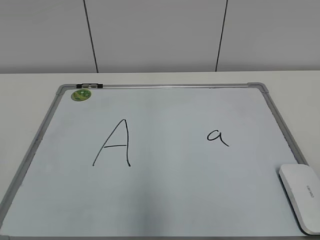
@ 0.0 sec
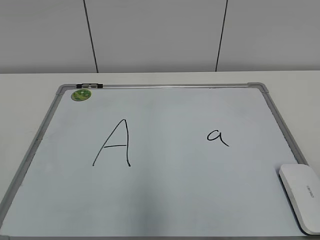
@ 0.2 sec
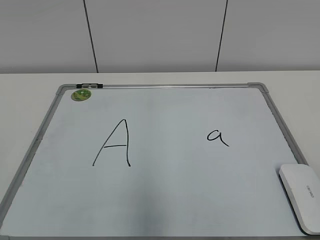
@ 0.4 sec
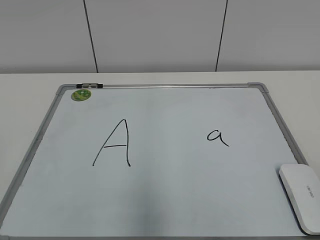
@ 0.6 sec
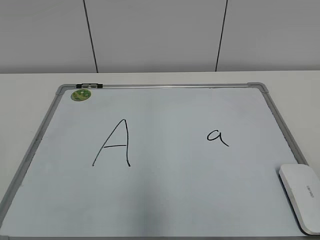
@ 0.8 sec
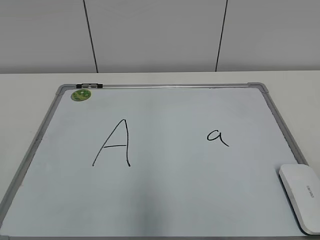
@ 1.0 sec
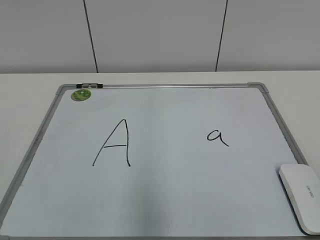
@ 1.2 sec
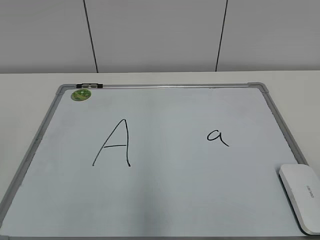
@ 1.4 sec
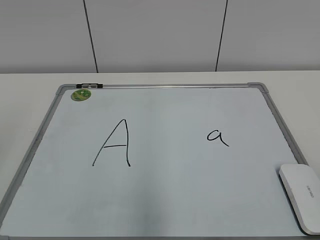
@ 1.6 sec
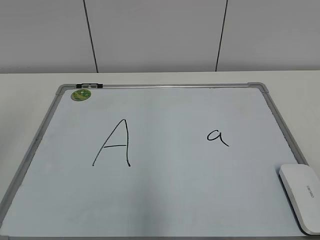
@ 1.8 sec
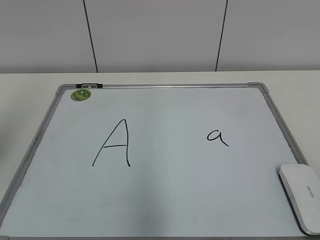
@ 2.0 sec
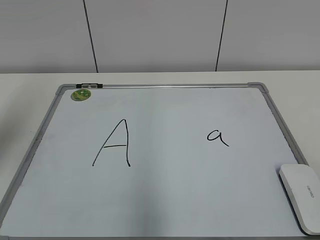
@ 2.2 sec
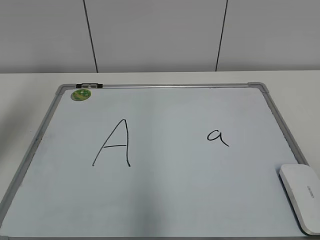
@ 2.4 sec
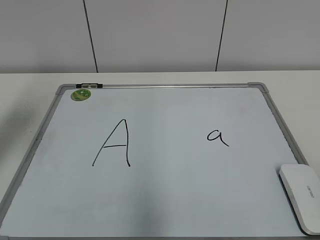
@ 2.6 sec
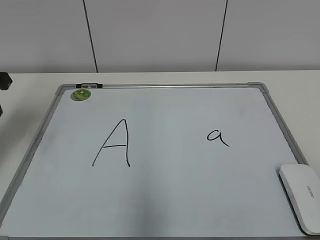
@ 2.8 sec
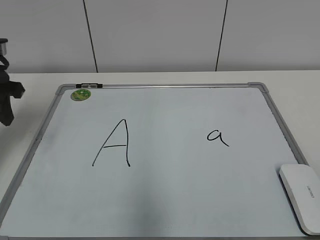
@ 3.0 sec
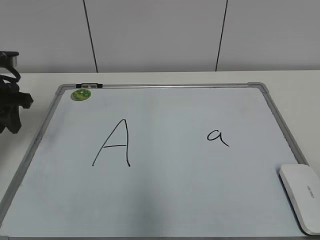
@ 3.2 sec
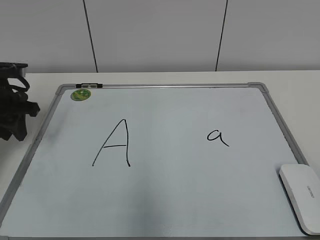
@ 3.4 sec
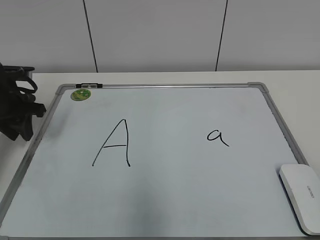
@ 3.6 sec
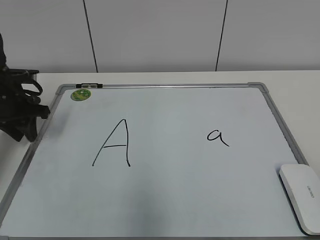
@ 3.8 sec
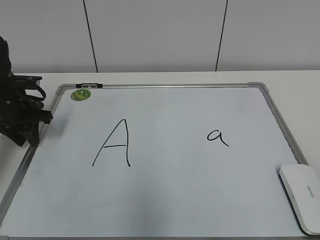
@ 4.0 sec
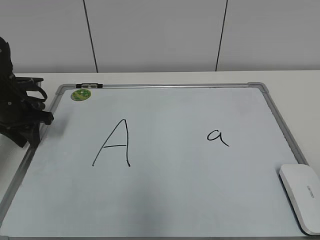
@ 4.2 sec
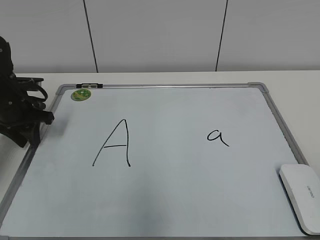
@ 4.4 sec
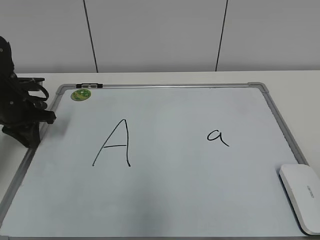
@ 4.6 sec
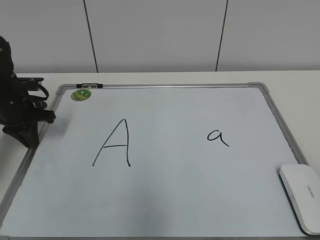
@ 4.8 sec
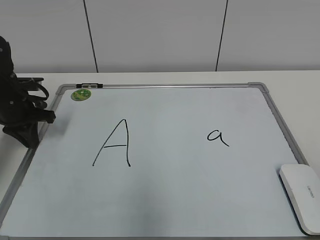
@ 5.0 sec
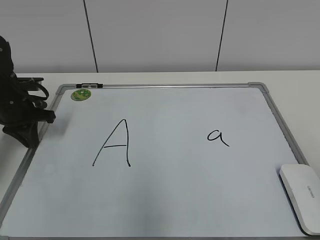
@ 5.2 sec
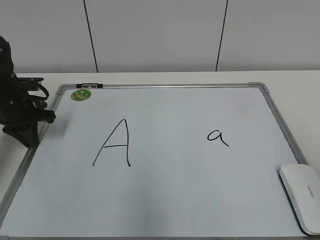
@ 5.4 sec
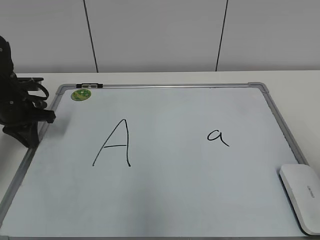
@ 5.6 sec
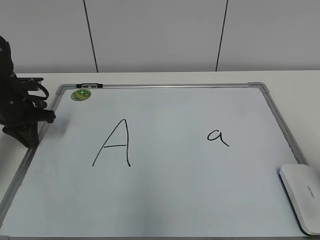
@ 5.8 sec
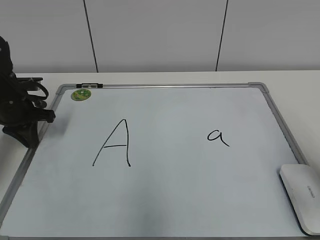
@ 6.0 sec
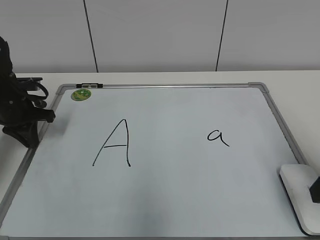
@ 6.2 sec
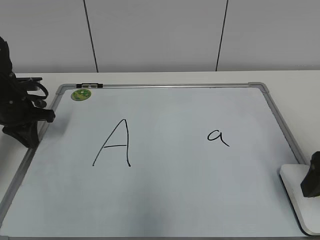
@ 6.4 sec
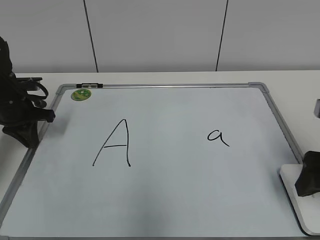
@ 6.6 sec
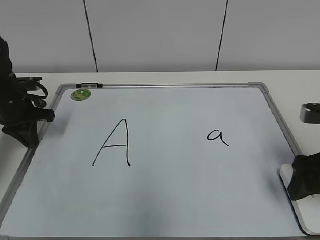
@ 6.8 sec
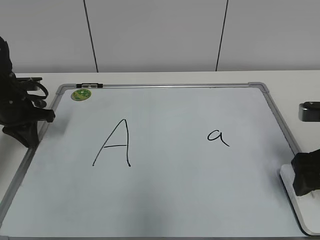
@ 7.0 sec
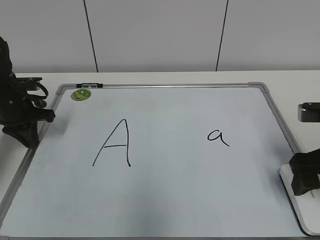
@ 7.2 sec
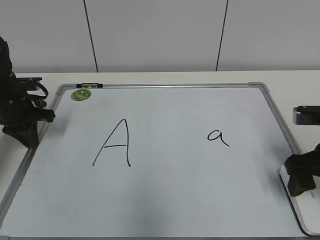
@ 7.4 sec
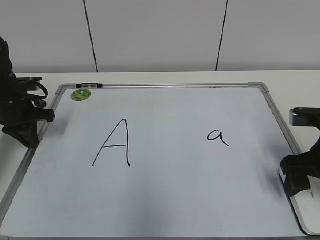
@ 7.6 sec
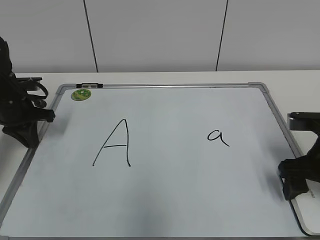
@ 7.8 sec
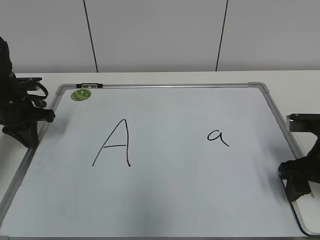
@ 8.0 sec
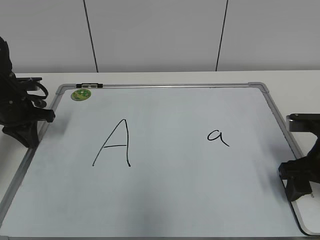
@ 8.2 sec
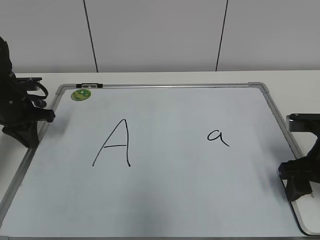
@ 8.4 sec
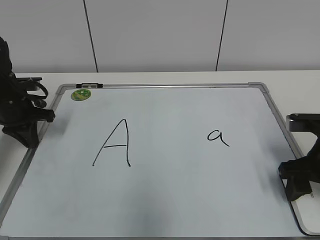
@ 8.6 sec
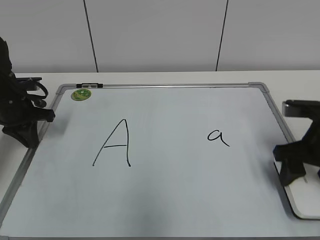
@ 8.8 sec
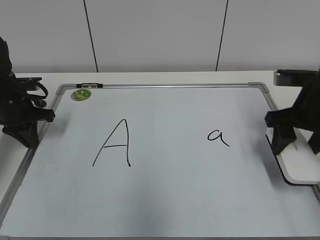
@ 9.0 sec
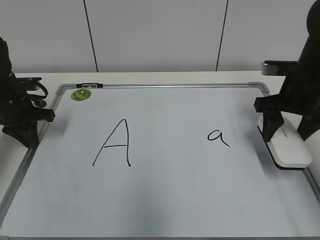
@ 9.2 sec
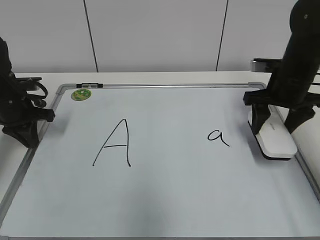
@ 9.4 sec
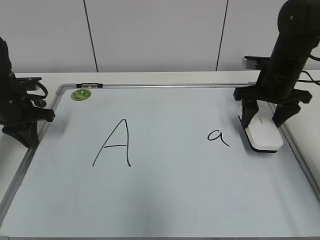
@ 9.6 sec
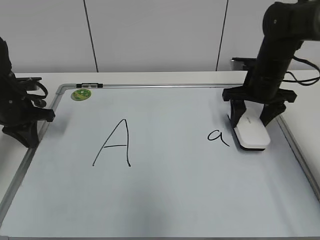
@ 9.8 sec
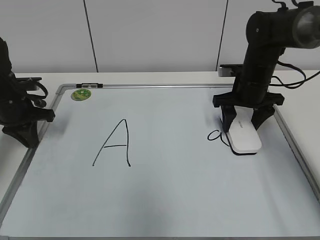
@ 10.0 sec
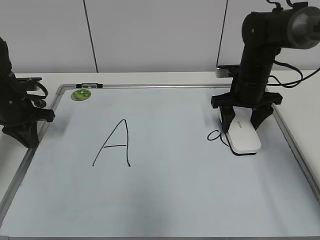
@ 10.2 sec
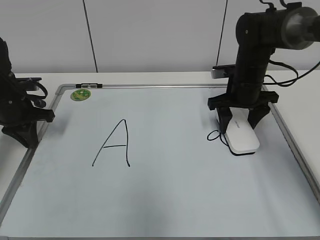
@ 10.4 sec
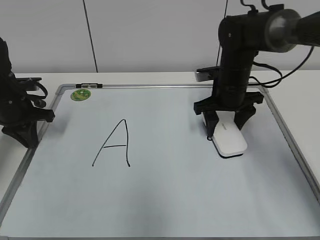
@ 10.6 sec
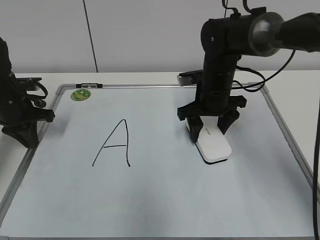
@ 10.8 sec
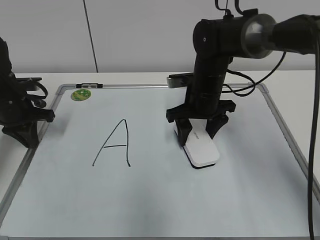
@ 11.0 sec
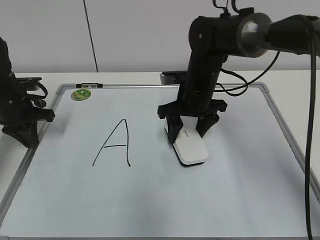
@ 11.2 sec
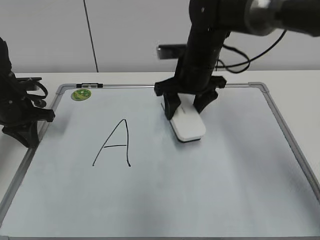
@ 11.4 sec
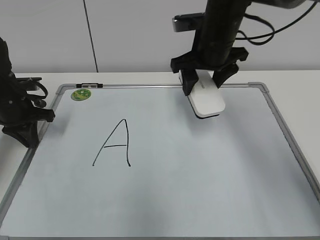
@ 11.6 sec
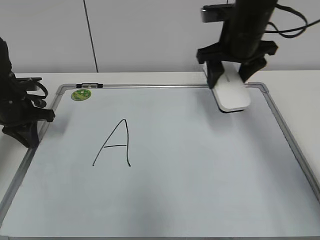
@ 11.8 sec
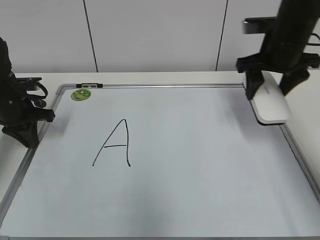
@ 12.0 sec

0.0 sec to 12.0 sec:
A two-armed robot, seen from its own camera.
Task of the whole recording: pick up the eraser on the blackboard and erase the letter "a".
Step, 0.0 sec to 5.4 sec: Hold the drawing board steady with your left hand.
Step, 5.6 sec to 8.2 sec: Grab the eraser with your right hand.
Step, 8.6 sec to 11.0 sec: Erase the letter a with your right hand.
1.6 sec to 3.0 sec: The left gripper travels forward and downward by about 30 cm.
3.0 sec to 4.4 sec: The left gripper heads downward and forward, covering roughly 10 cm.
4.4 sec to 6.0 sec: The left gripper closes up. The right gripper moves forward, about 20 cm, and opens.
6.0 sec to 7.6 sec: The right gripper heads forward and downward, covering about 10 cm.
7.6 sec to 9.0 sec: The right gripper is displaced forward by roughly 5 cm, and closes up.
9.0 sec to 10.4 sec: The right gripper moves forward, to the left and downward, about 15 cm.
10.4 sec to 12.0 sec: The right gripper shifts approximately 10 cm upward, and travels to the left and back again, approximately 10 cm each way.

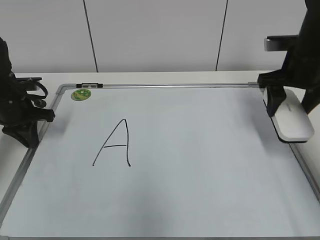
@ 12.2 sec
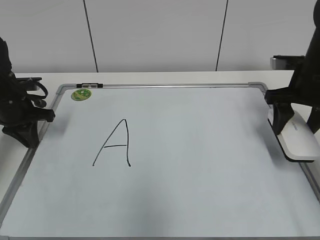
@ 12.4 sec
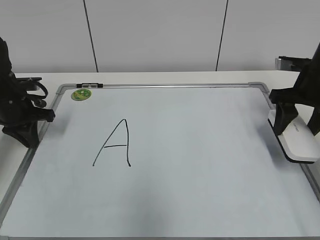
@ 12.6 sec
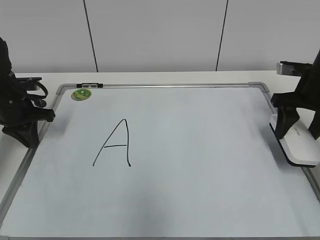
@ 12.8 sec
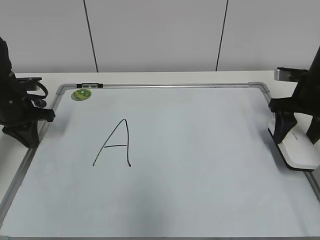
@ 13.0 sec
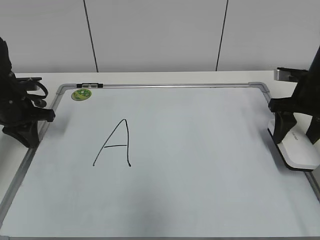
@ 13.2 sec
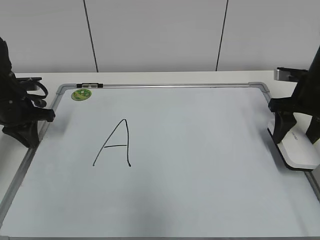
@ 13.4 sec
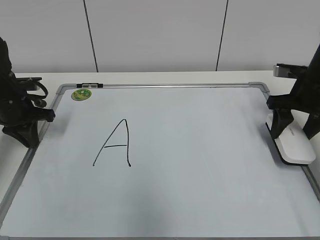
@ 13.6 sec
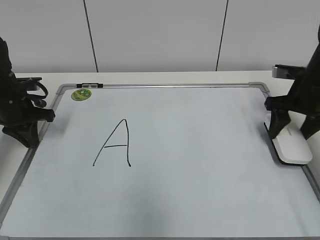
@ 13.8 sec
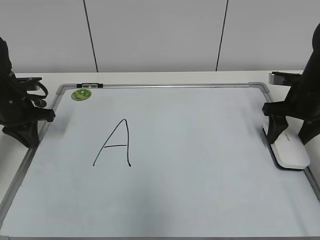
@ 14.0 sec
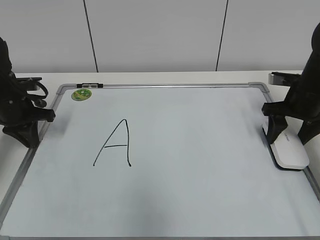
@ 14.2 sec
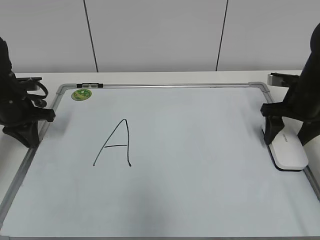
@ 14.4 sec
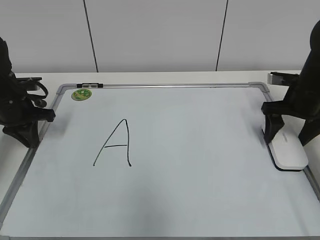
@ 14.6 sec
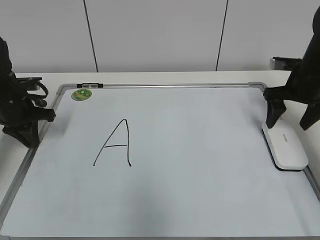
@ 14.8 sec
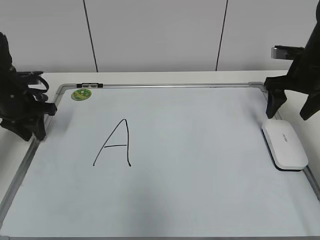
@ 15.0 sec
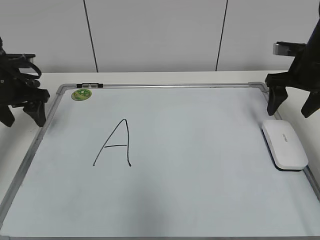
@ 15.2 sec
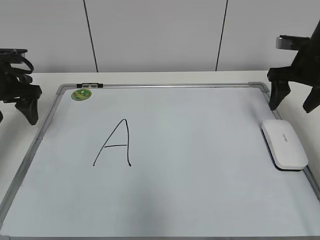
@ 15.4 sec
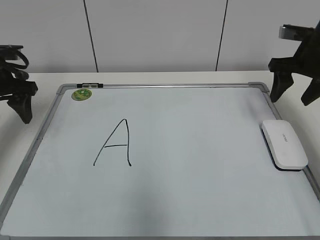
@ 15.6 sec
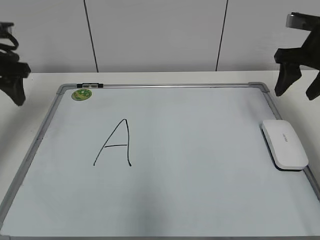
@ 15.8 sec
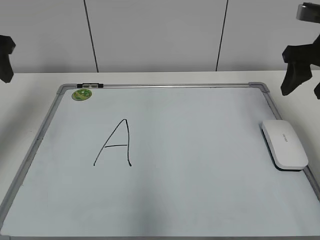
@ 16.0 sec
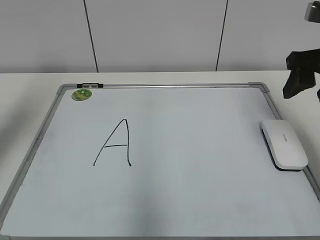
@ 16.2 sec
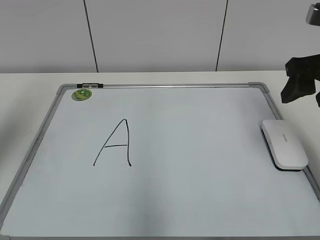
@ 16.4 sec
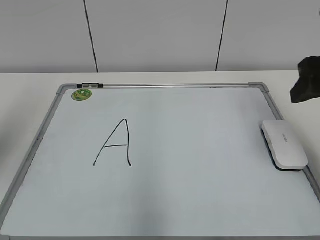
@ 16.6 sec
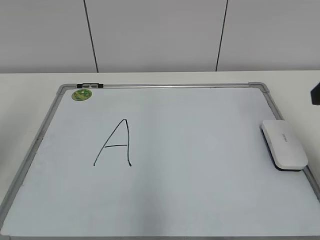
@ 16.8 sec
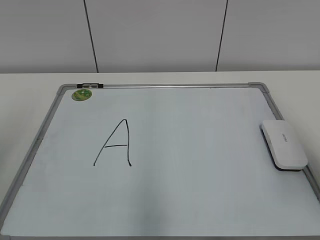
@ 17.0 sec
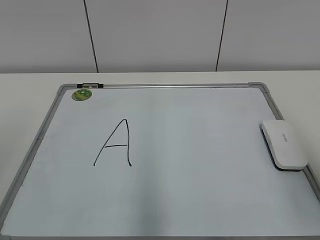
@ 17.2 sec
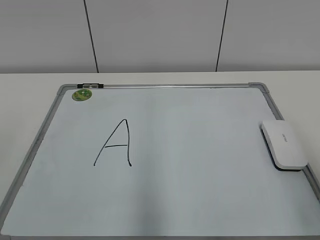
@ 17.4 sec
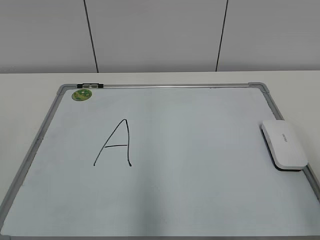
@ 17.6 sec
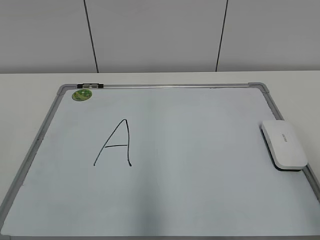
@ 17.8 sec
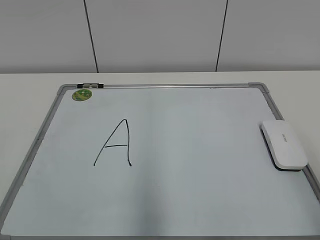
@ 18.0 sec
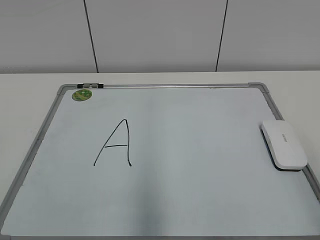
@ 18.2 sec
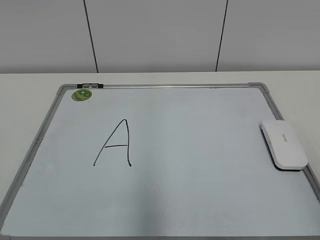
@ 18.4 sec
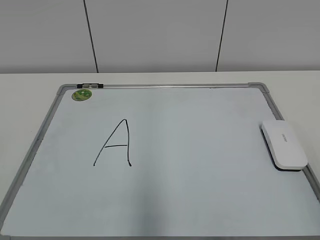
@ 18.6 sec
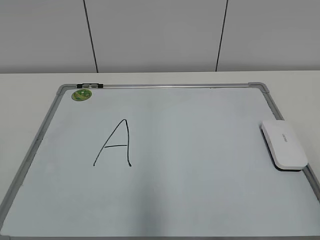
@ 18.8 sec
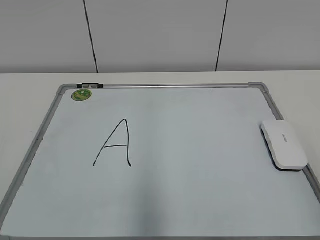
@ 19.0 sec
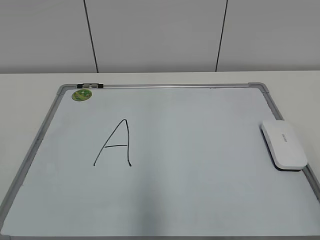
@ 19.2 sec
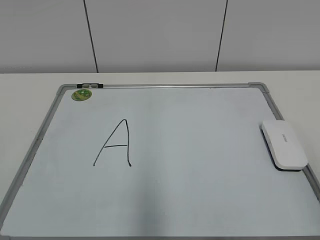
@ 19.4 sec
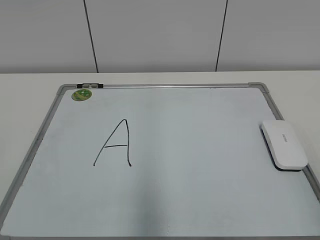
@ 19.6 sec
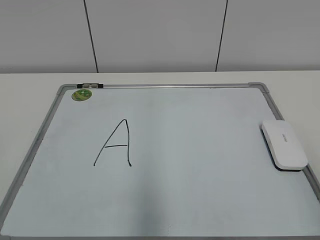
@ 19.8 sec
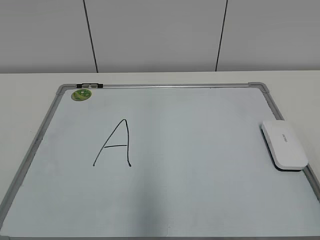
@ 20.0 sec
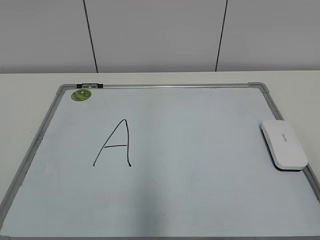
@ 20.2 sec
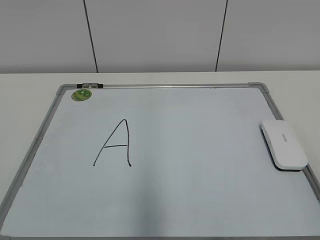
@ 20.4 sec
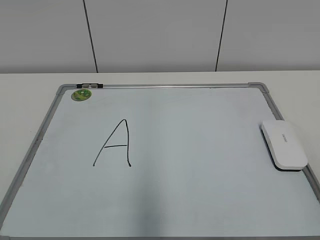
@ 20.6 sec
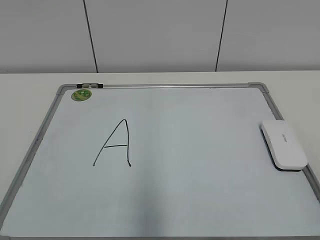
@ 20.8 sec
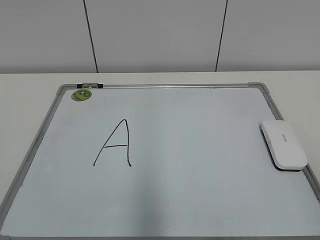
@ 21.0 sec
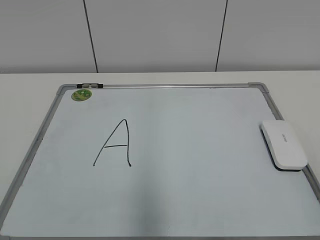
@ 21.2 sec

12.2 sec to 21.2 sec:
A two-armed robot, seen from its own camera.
Task of the whole recording: pick up the eraser on the blackboard and erase the letter "a".
Step, 12.2 sec to 14.4 sec: Put down the eraser with your right hand.
12.2 sec to 13.8 sec: The right gripper shifts about 5 cm downward.
13.8 sec to 15.2 sec: The left gripper is displaced upward by some 5 cm, and opens. The right gripper opens up.
15.2 sec to 16.6 sec: The two grippers go roughly 20 cm backward and upward. The right gripper closes its fingers.
16.6 sec to 18.2 sec: The two grippers go roughly 20 cm backward.
